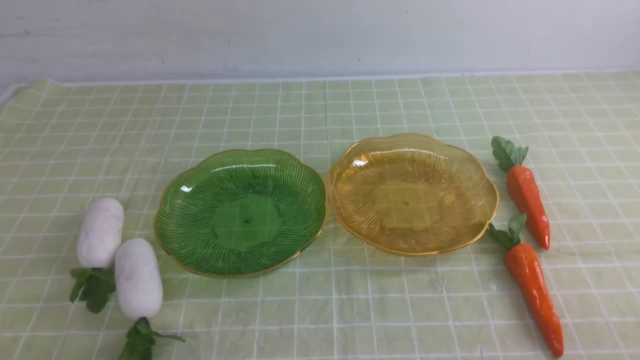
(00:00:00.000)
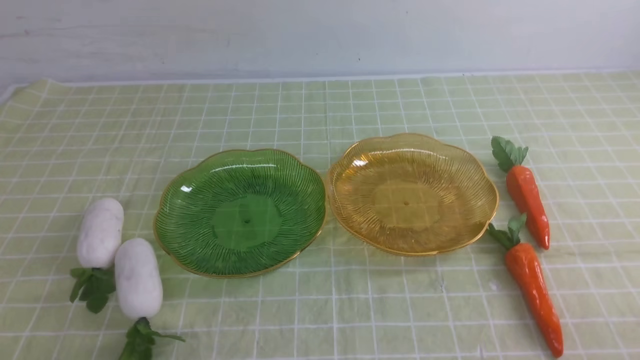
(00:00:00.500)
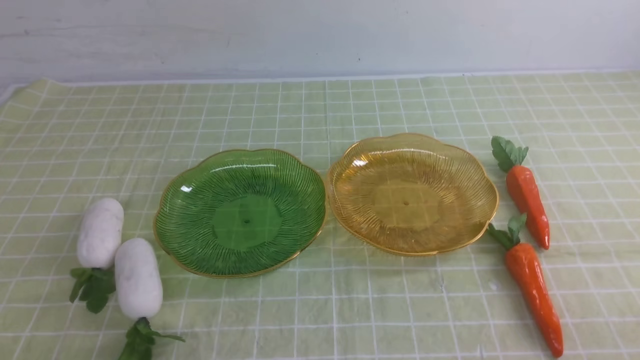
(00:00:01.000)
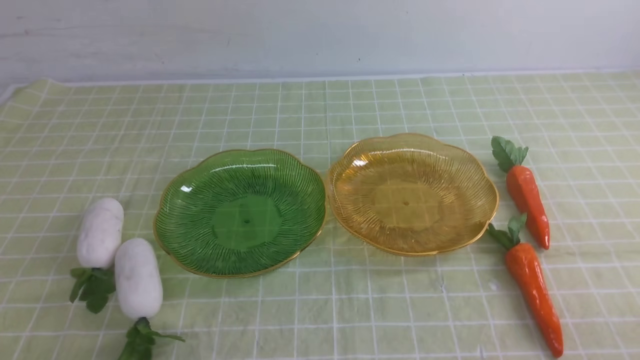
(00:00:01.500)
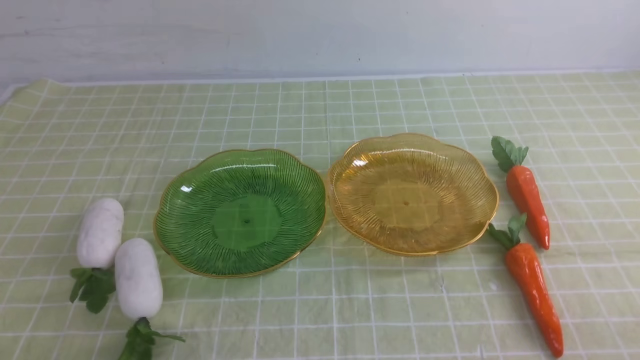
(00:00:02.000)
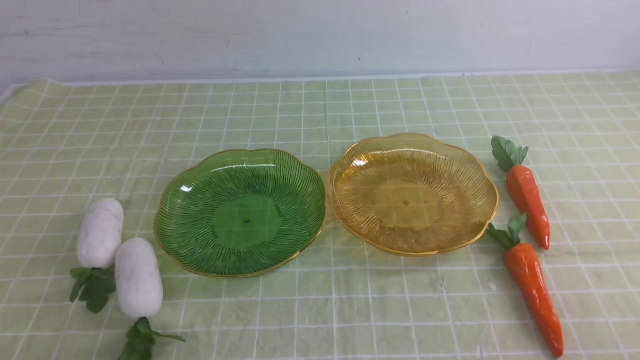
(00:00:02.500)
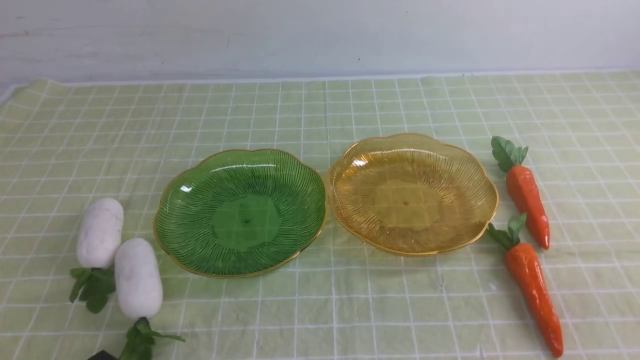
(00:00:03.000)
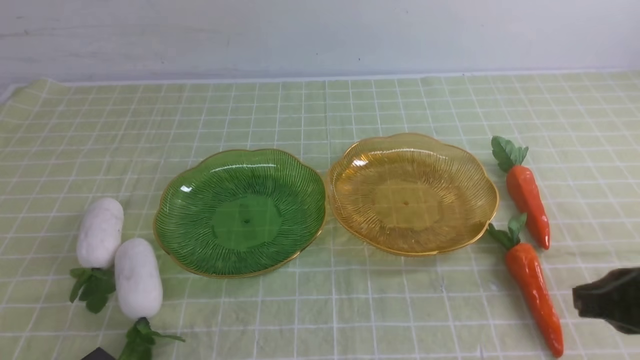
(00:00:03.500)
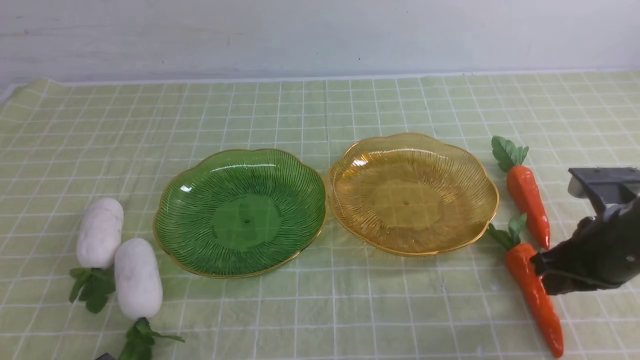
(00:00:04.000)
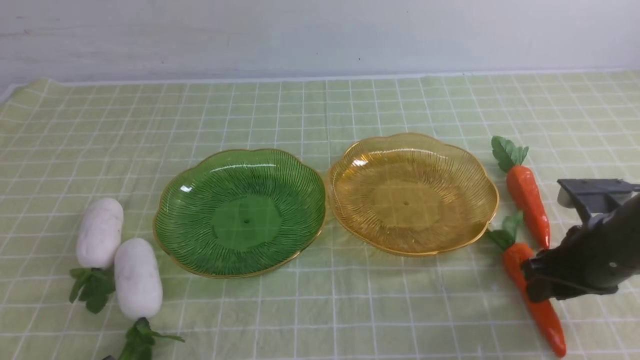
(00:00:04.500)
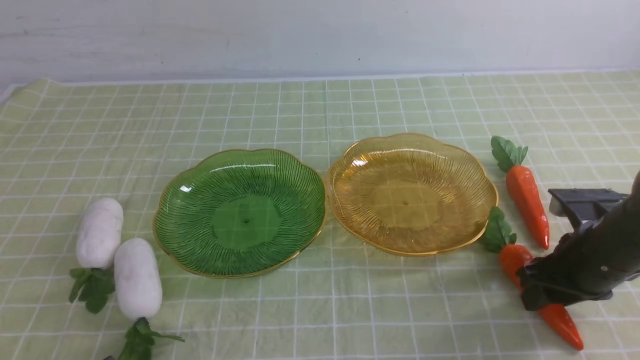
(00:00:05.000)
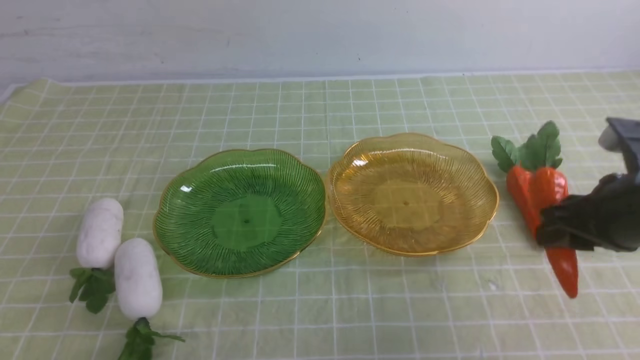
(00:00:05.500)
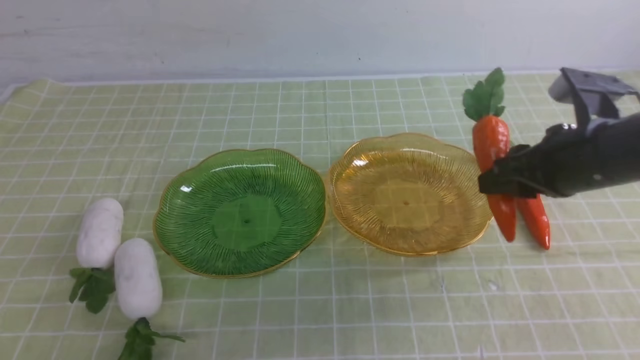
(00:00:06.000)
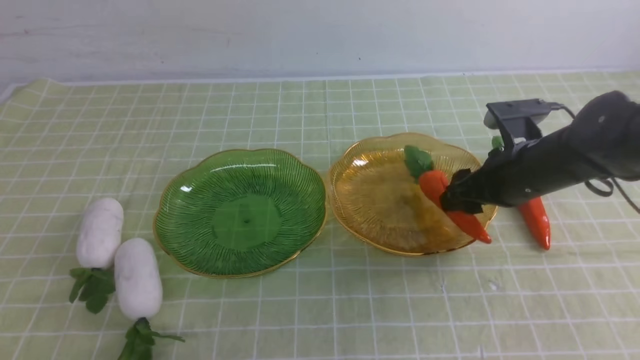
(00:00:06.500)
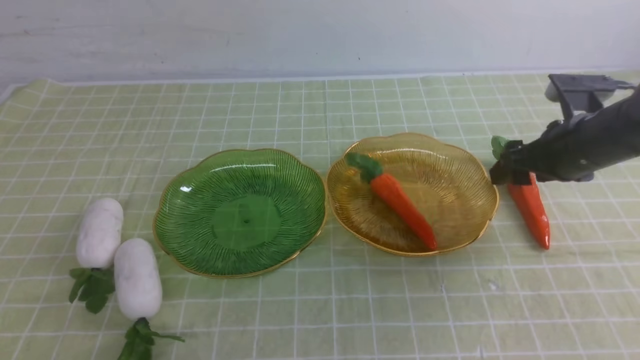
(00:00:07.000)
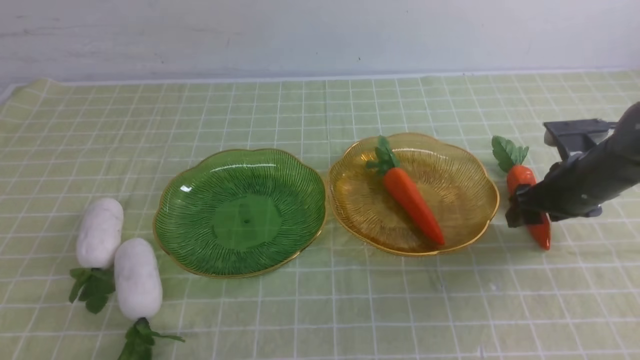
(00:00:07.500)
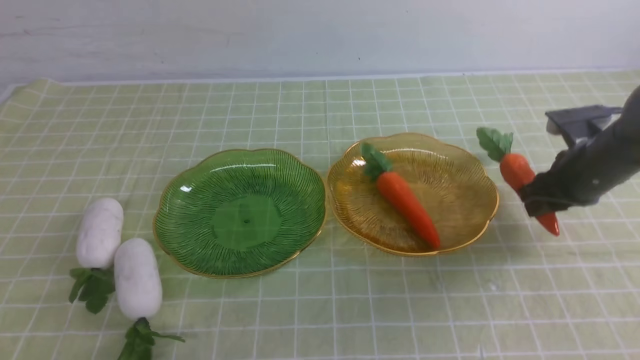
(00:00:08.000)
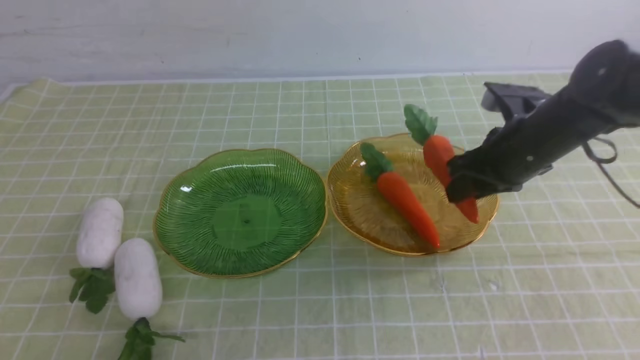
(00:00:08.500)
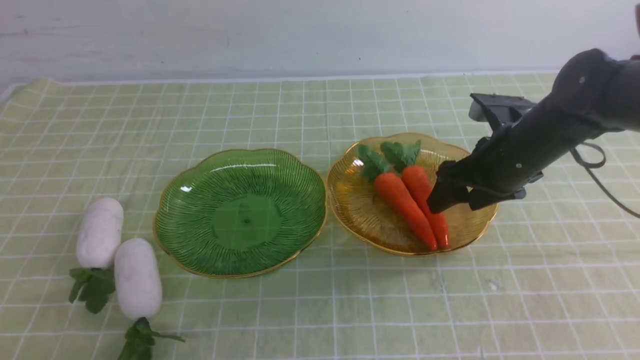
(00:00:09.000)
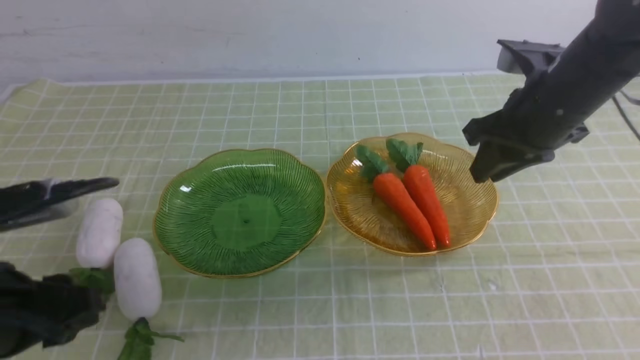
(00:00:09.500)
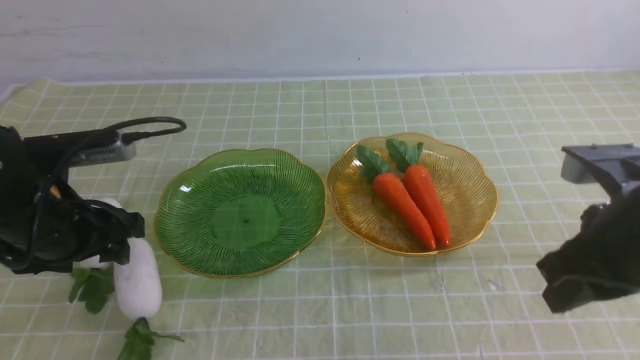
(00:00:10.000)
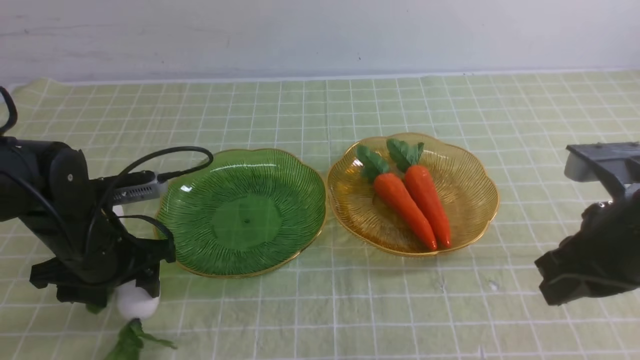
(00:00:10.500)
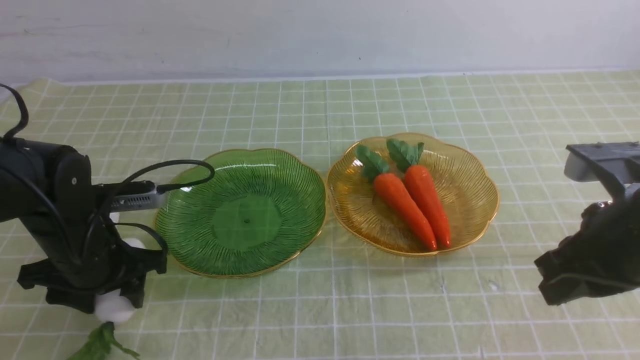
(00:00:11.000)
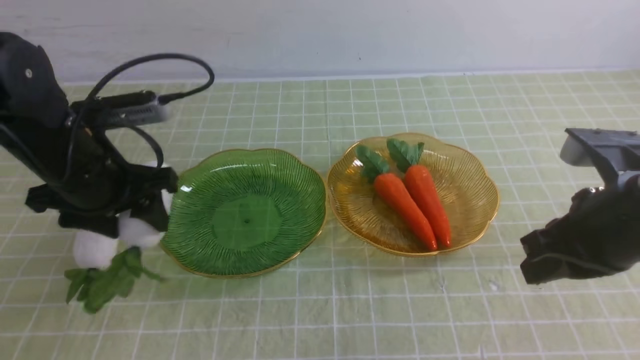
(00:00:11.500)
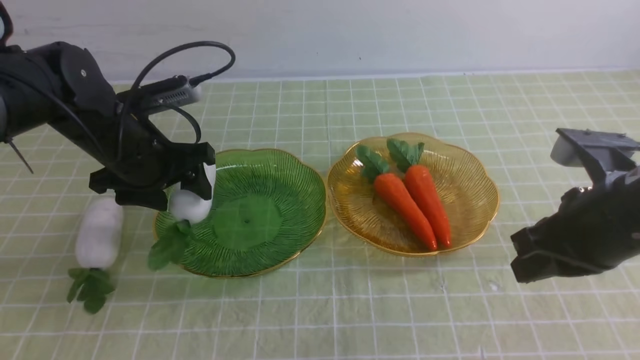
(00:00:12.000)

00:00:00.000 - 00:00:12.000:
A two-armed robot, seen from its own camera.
Step, 00:00:00.000 - 00:00:10.000: use the right arm to grab a carrot and put it into the right plate.
00:00:02.000 - 00:00:04.000: The right gripper goes approximately 20 cm forward.
00:00:04.000 - 00:00:06.000: The right gripper shifts approximately 5 cm upward.
00:00:06.000 - 00:00:08.000: The right gripper shifts approximately 10 cm forward, downward and to the right, and opens, then closes again.
00:00:08.000 - 00:00:10.000: The left gripper travels forward by approximately 20 cm, and opens up, while the right gripper goes roughly 20 cm backward and upward, and closes its fingers.
00:00:10.000 - 00:00:12.000: The left gripper shifts approximately 10 cm forward.

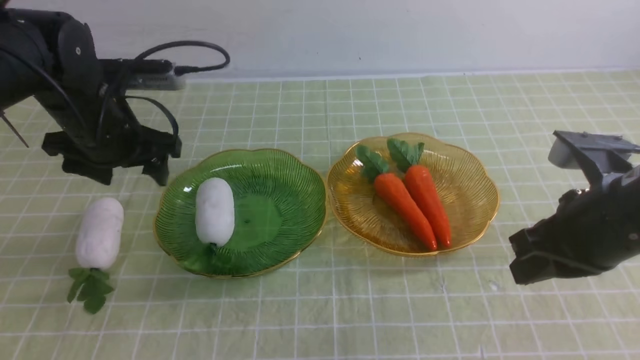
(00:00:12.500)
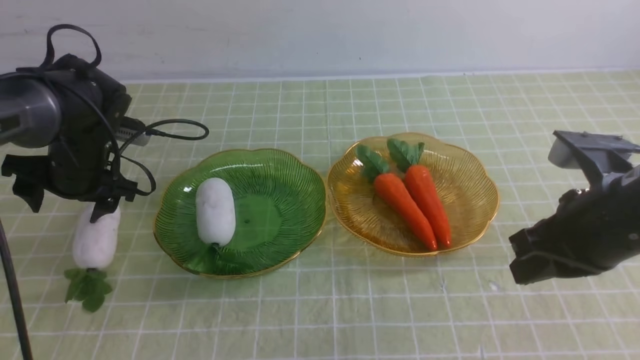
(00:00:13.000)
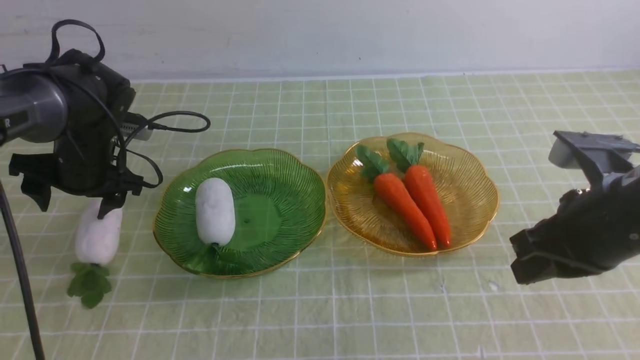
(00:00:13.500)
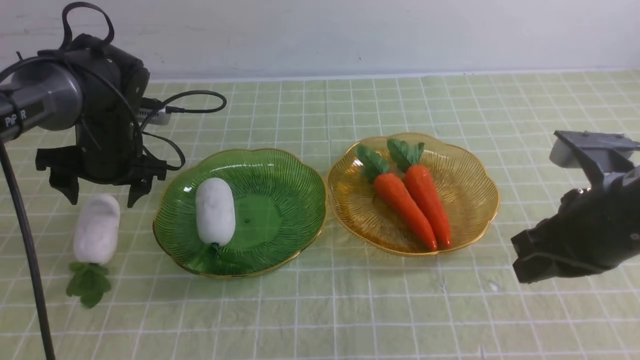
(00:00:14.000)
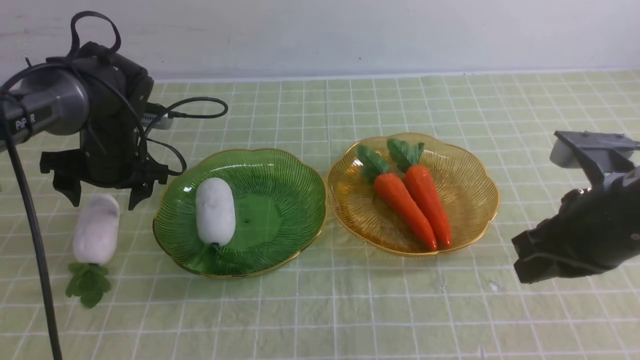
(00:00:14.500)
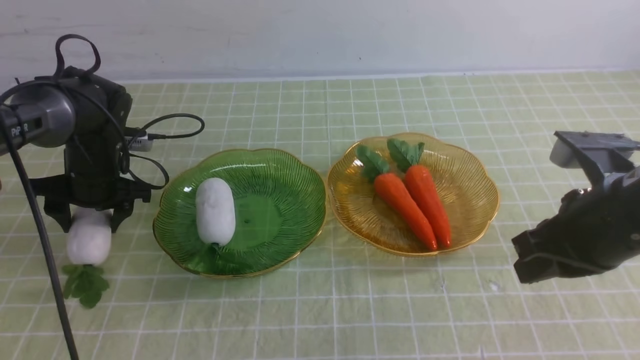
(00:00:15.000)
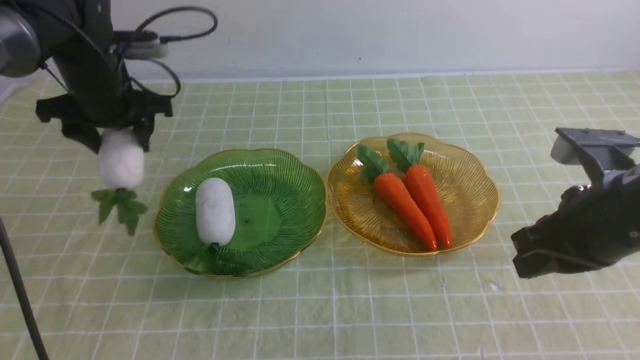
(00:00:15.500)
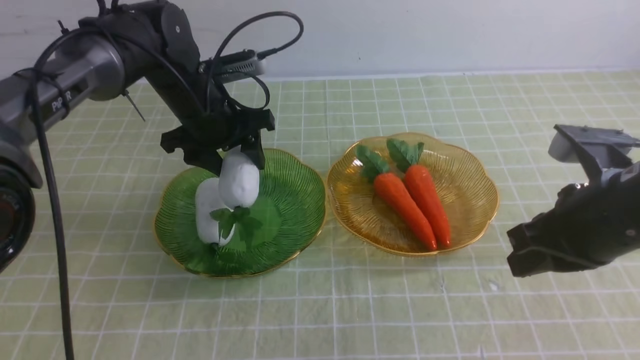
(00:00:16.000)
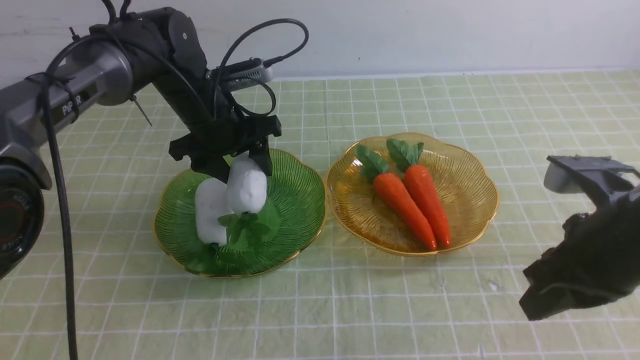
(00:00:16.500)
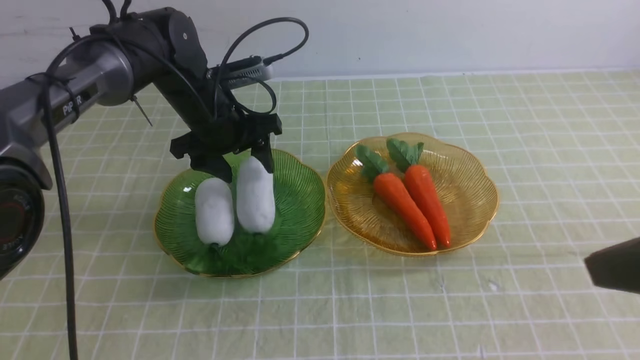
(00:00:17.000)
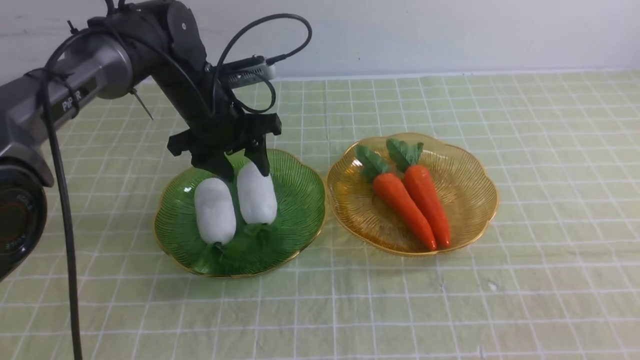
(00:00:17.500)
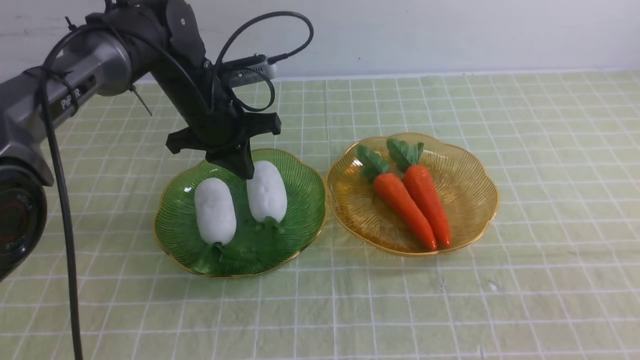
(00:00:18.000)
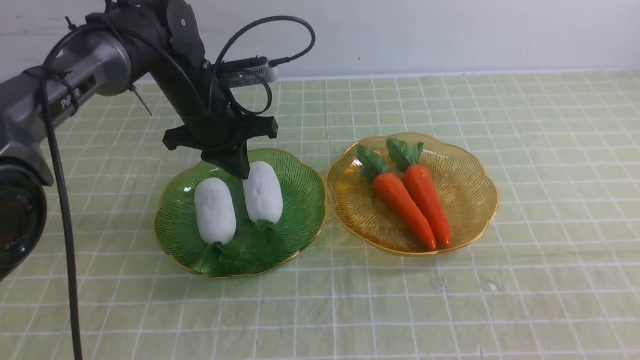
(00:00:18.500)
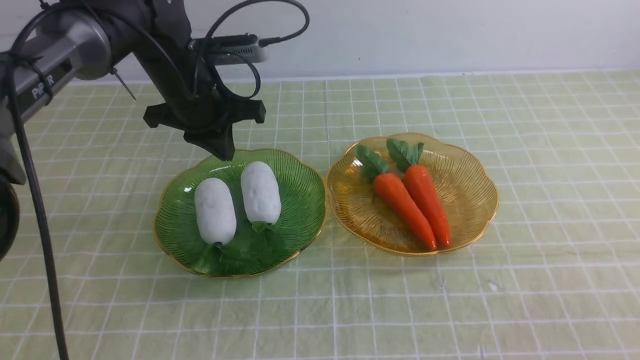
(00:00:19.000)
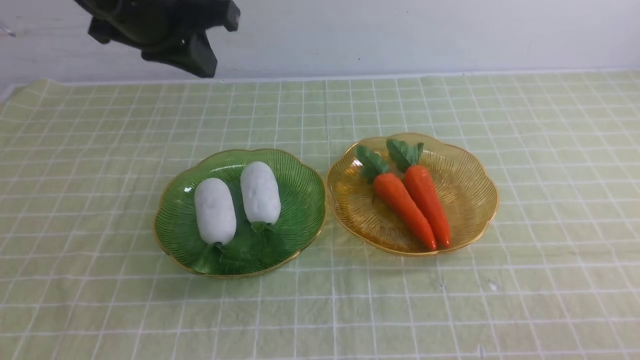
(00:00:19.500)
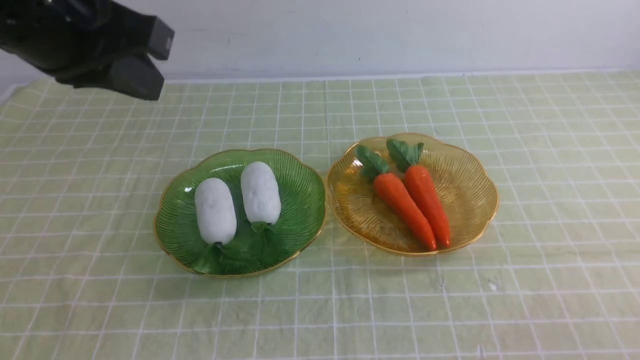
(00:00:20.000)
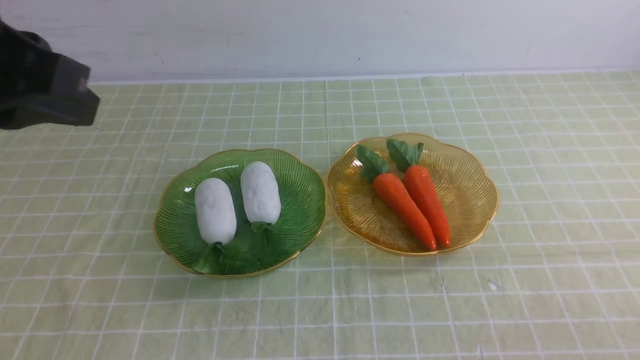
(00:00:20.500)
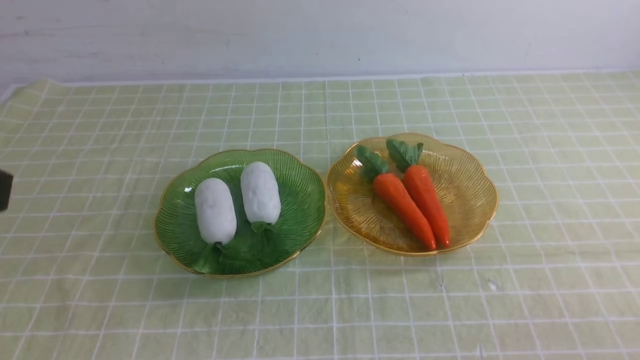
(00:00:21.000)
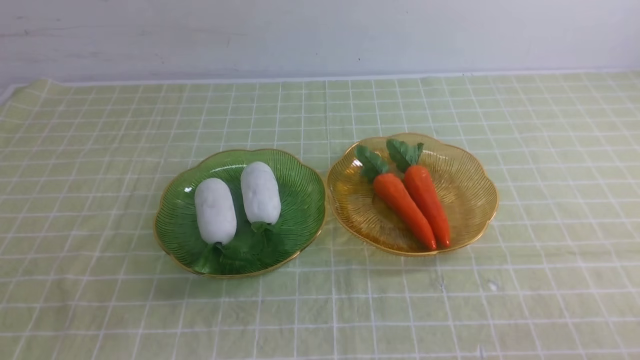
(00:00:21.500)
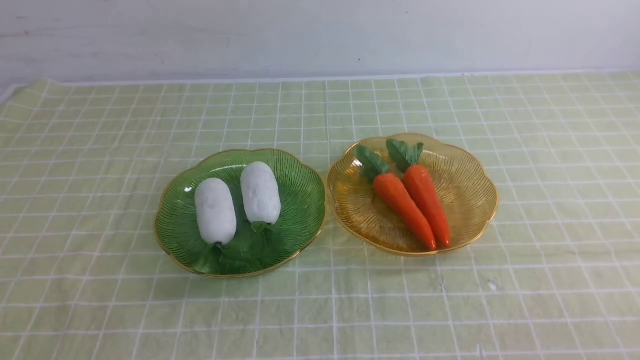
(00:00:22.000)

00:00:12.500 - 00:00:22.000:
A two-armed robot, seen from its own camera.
Step, 00:00:12.500 - 00:00:19.500: use the left arm to grab a radish and put it into the left plate.
00:00:12.500 - 00:00:14.500: The left gripper moves downward, roughly 5 cm.
00:00:14.500 - 00:00:16.500: The left gripper moves to the right, about 10 cm.
00:00:16.500 - 00:00:18.000: The right gripper is displaced backward by roughly 15 cm. The left gripper closes its fingers.
00:00:18.000 - 00:00:20.000: The left gripper heads upward and backward, covering approximately 25 cm. Meanwhile the right gripper is displaced downward by approximately 10 cm.
00:00:20.000 - 00:00:22.000: The left gripper is displaced backward by approximately 30 cm.
